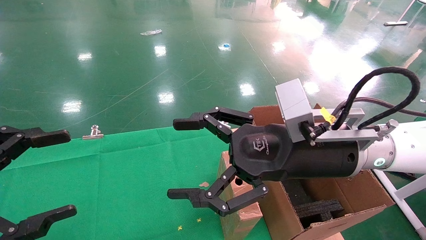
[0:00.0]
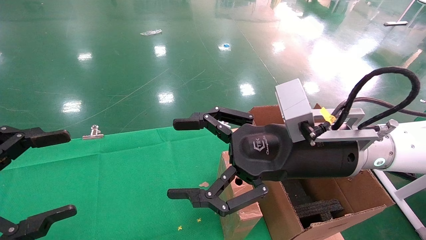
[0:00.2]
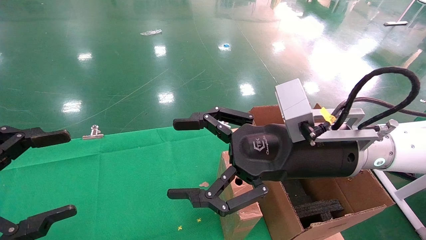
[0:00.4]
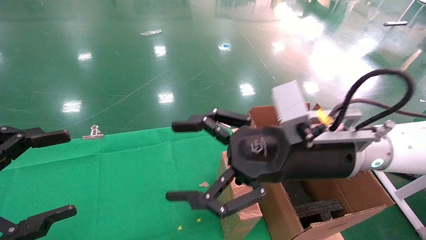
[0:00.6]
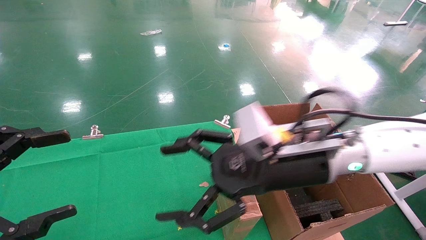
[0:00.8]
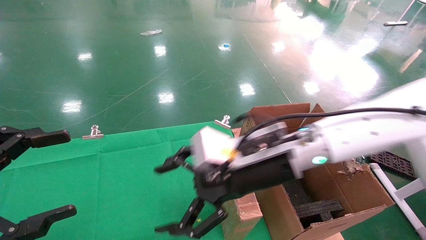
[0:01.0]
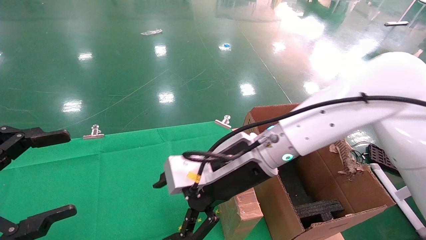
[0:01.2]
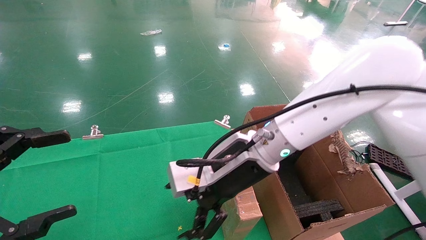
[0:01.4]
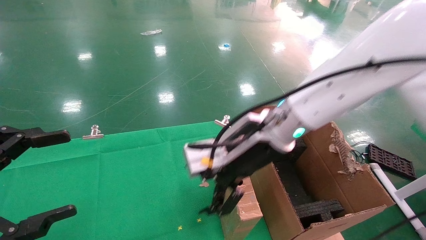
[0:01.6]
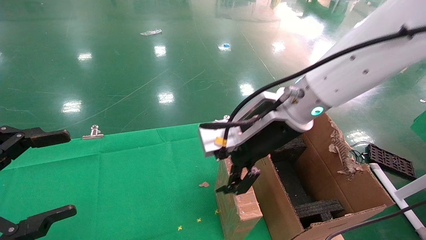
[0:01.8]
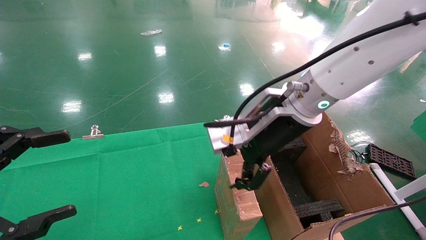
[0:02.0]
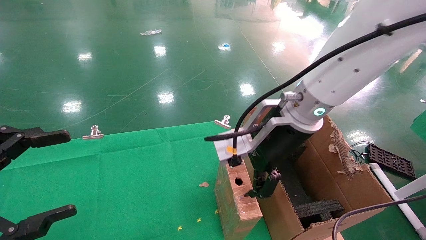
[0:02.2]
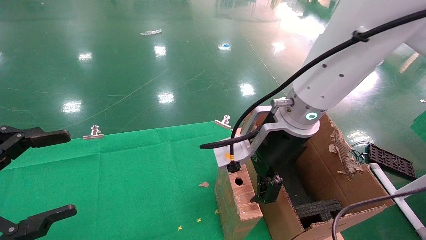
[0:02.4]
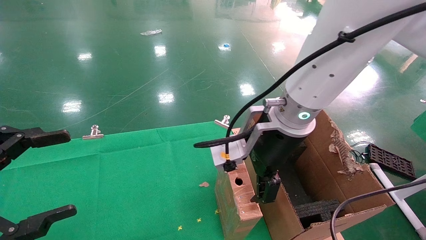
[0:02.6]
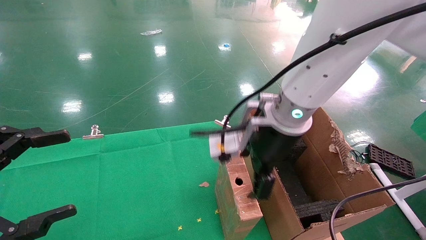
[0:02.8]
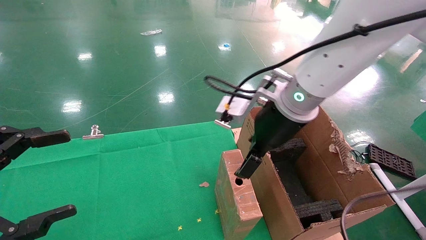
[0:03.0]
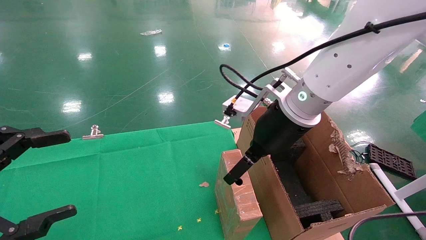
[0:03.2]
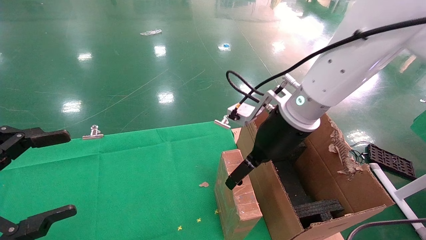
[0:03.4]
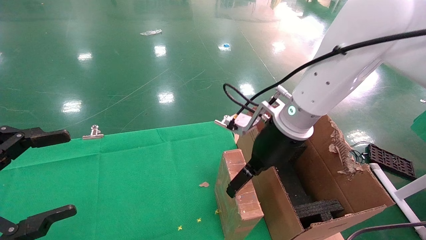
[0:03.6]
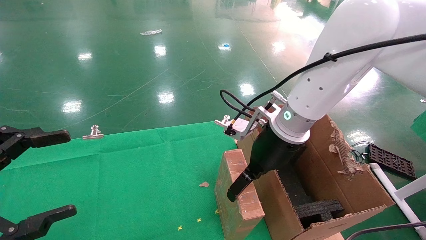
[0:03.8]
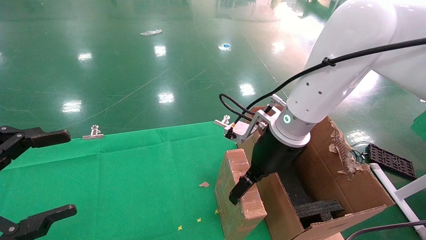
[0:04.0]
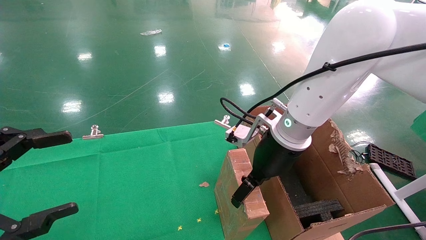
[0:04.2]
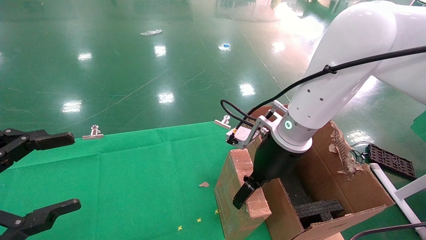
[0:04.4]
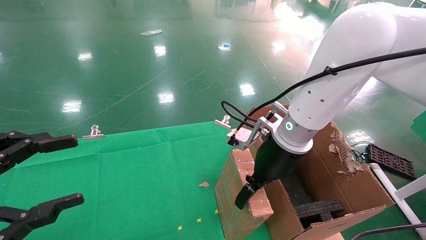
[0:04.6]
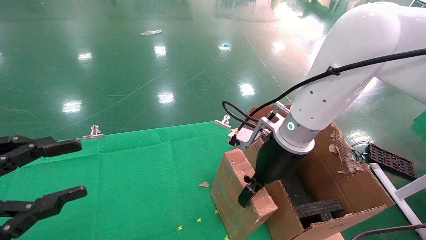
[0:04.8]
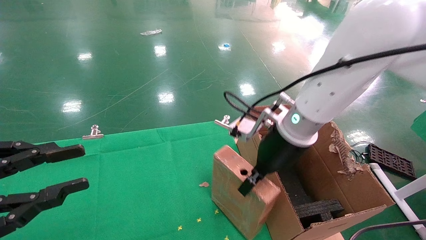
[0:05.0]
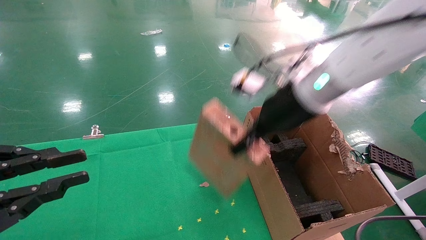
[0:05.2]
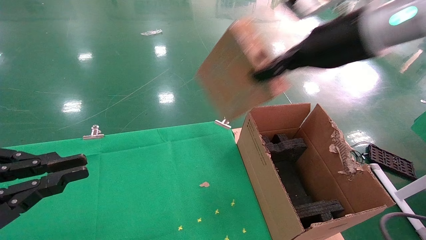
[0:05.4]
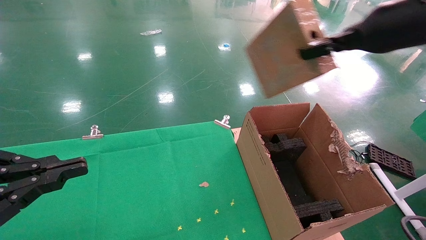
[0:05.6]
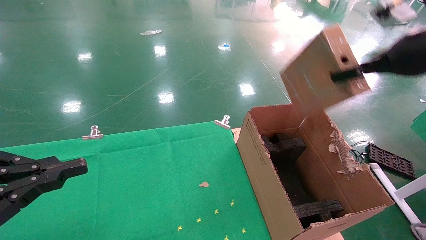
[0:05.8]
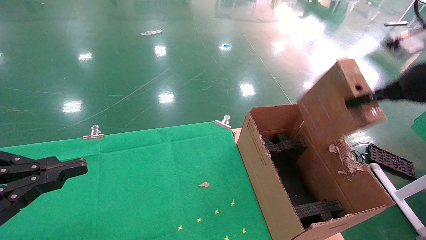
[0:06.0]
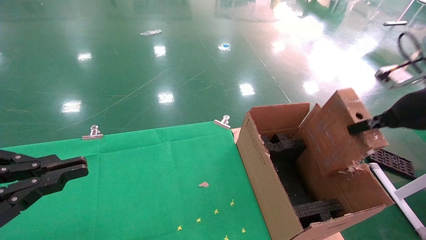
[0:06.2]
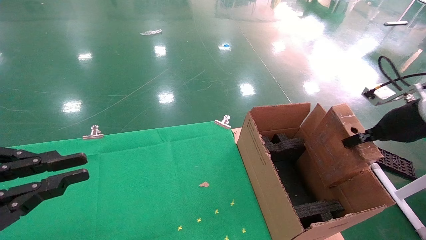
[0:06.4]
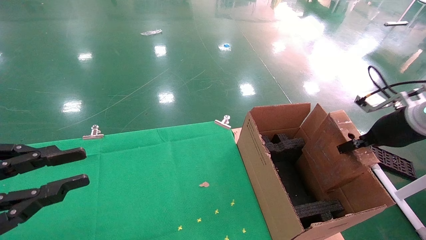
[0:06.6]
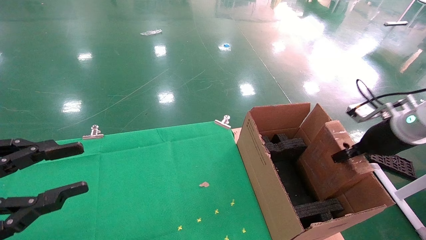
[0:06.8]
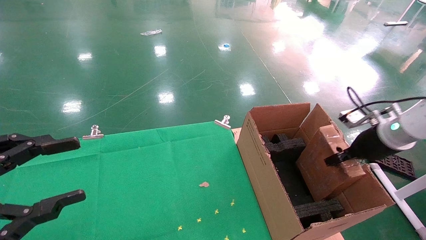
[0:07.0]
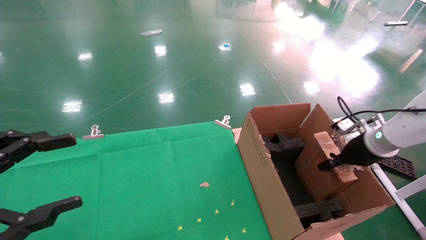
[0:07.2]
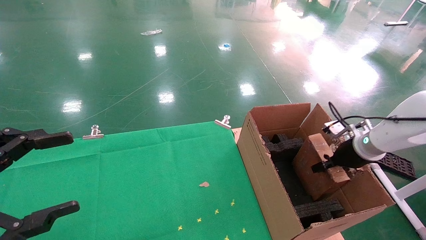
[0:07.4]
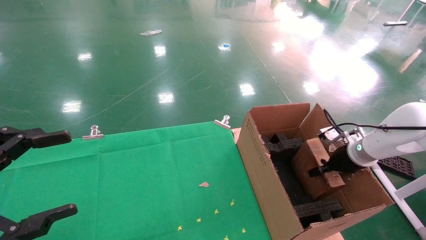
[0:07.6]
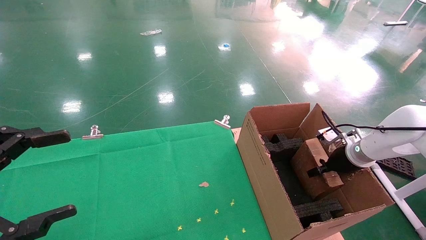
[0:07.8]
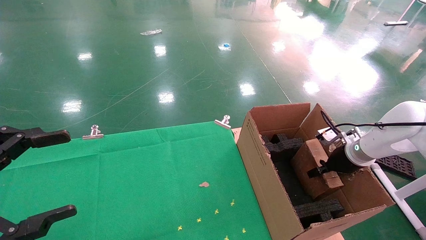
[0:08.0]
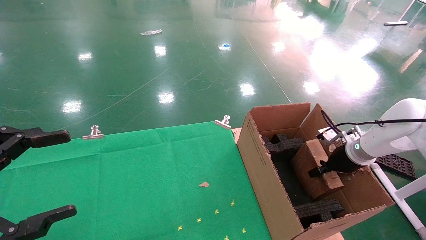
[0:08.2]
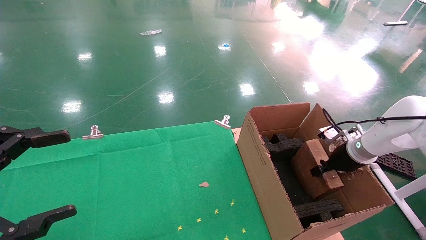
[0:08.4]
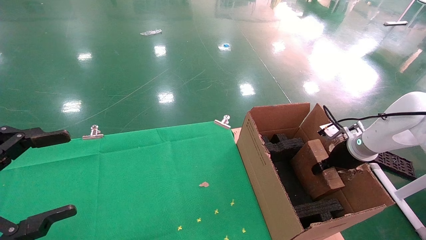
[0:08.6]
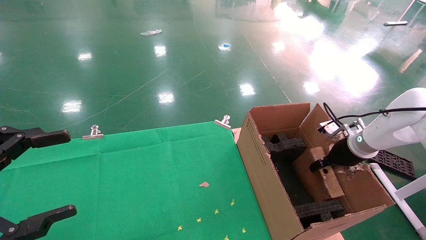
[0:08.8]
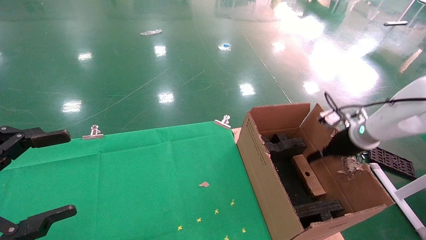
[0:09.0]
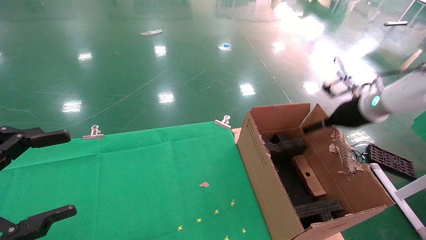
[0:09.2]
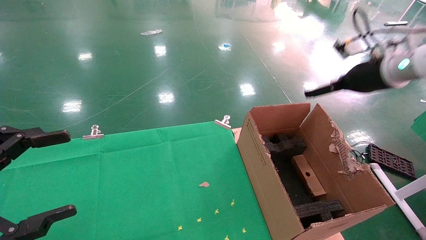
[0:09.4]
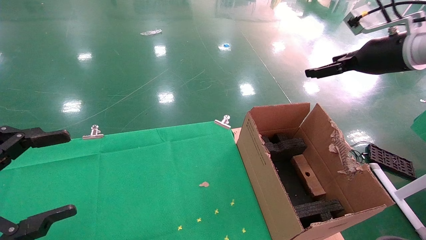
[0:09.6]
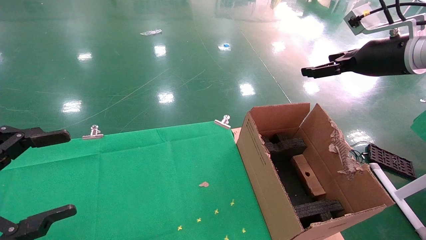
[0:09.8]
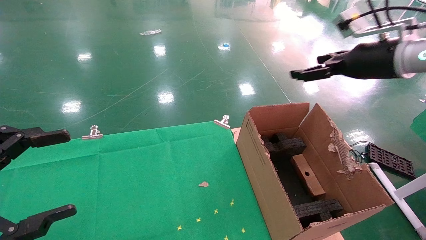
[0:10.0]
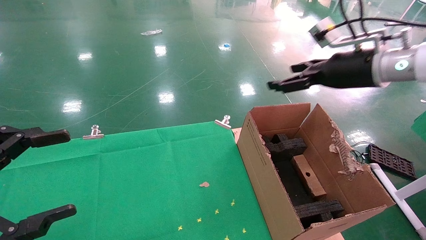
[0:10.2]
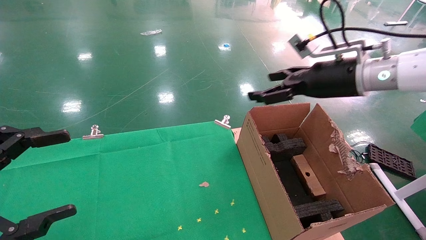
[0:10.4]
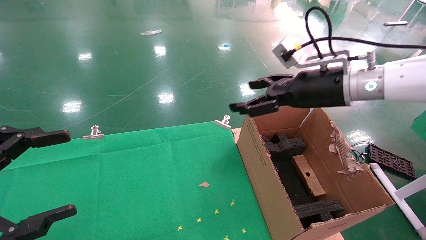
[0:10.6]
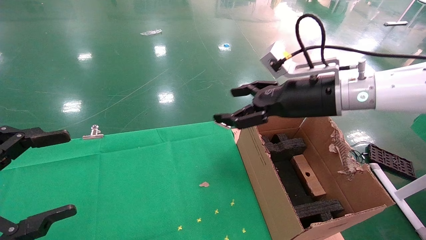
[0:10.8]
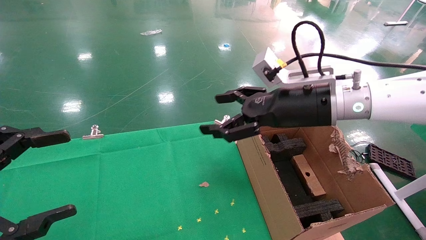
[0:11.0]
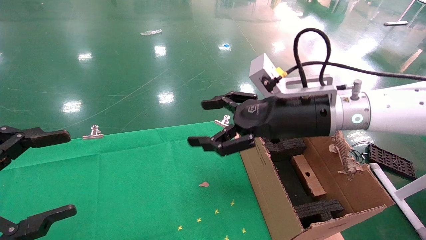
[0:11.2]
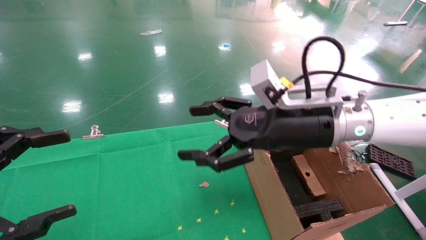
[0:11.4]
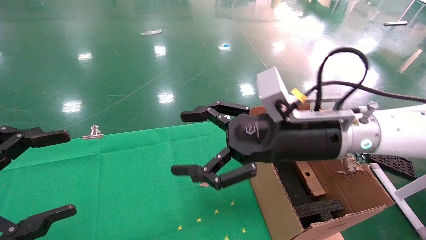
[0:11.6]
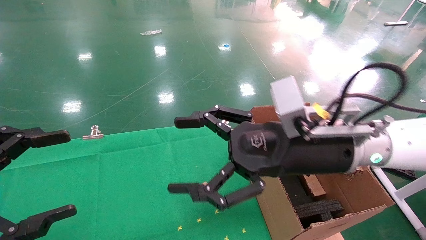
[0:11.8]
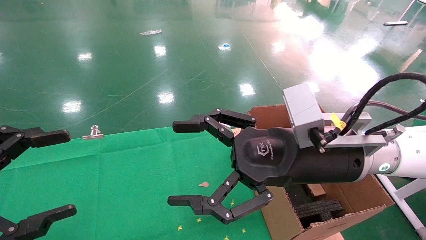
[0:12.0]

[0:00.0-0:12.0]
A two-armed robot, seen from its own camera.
Task of the whole recording: using a robotic arm to pick up a cardboard box and palace it the carton.
Step, 0:01.0 to 0:05.2: Pick up the mouse and the power cord paper box.
Step, 0:05.4 to 0:09.2: Place the mouse and the power cord paper box into the container.
0:00.0 to 0:01.6: The right gripper travels forward and to the left by approximately 10 cm.
0:03.0 to 0:04.4: The right gripper shifts roughly 5 cm downward.
0:04.4 to 0:06.0: The right gripper goes about 25 cm to the right and upward, and closes its fingers, while the left gripper closes up.
0:06.0 to 0:07.6: The left gripper opens its fingers; the right gripper shifts approximately 25 cm downward and forward.
0:07.6 to 0:09.0: The right gripper travels upward by approximately 5 cm, and opens.
0:09.0 to 0:10.4: The right gripper heads upward, to the left and backward, covering roughly 20 cm, and opens.
0:10.4 to 0:12.0: The right gripper heads to the left, backward and downward, covering approximately 15 cm.

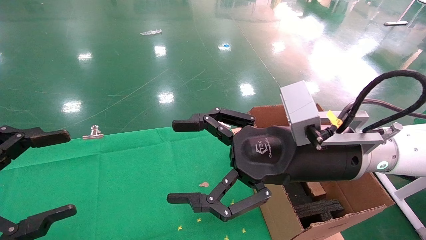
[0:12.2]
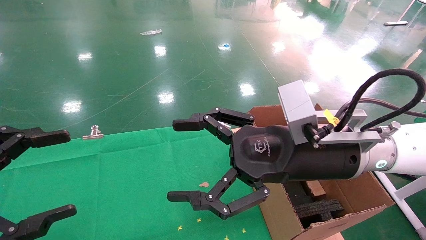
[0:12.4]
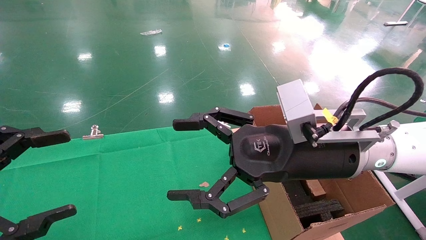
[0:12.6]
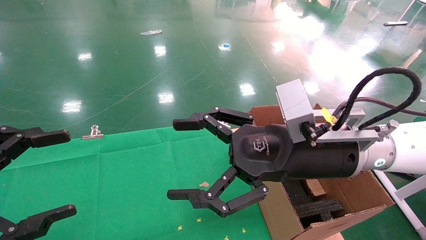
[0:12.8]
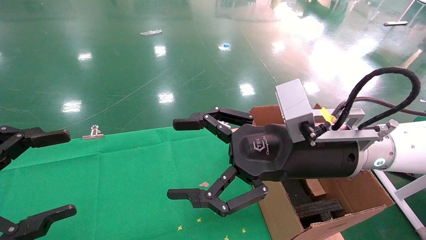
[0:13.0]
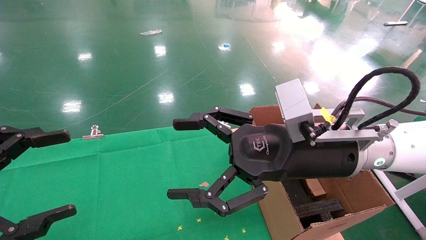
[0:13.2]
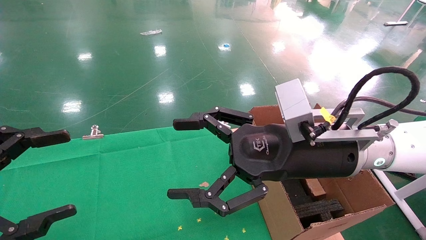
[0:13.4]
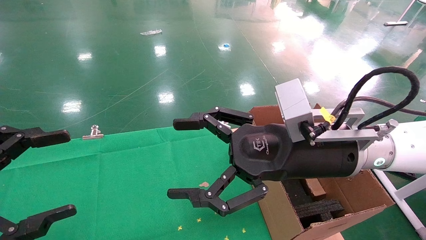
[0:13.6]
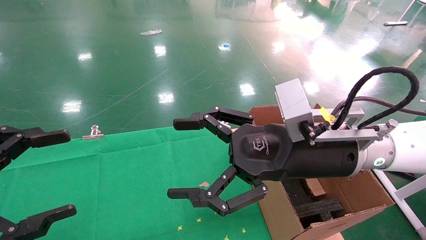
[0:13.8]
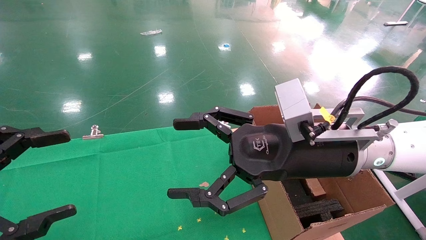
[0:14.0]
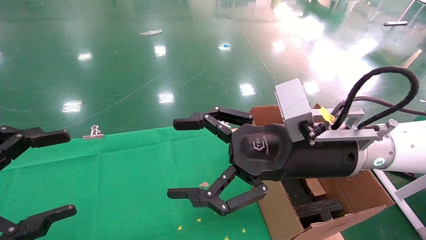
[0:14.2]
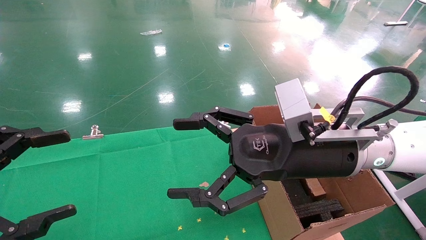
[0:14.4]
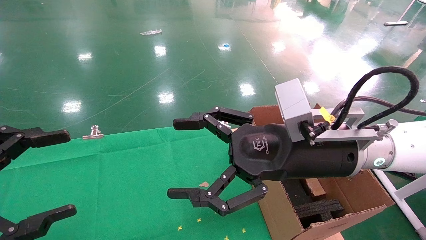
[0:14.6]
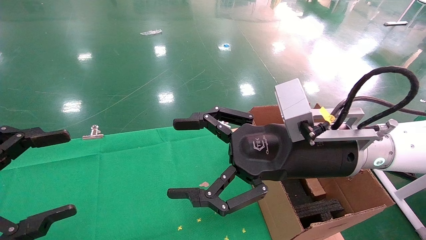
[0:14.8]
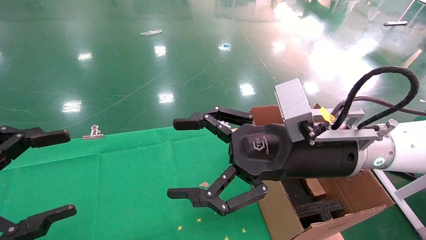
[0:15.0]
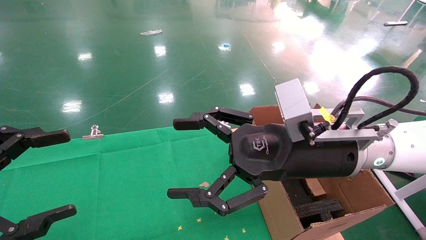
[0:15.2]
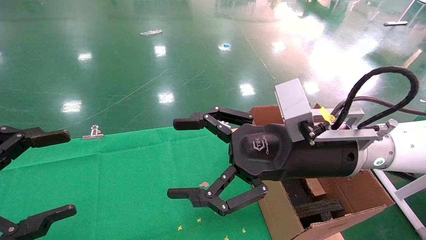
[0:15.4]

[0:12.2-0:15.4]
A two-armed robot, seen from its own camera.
Task of the whole recording: using a robotic arm to pick up a cardboard box and palace it the carton.
0:12.2 to 0:15.4: The two grippers keep their place.

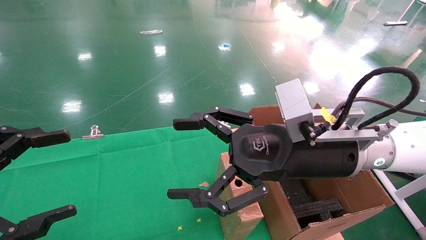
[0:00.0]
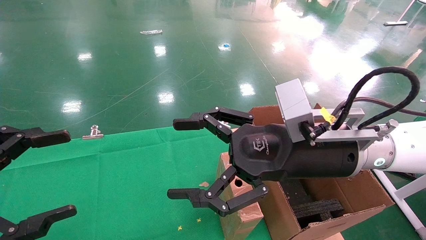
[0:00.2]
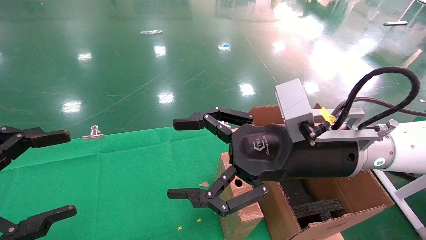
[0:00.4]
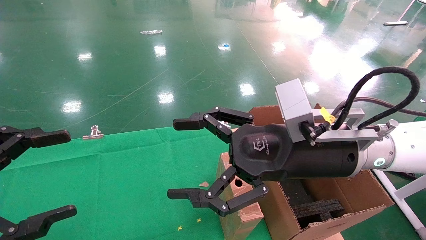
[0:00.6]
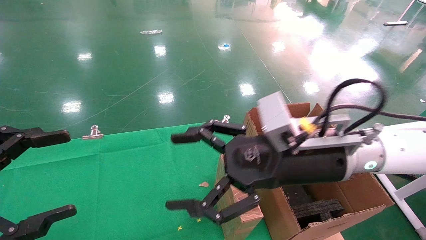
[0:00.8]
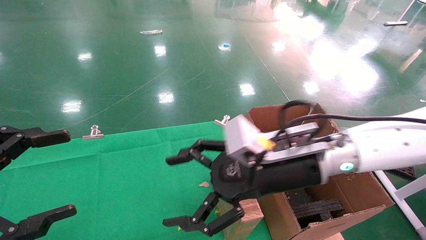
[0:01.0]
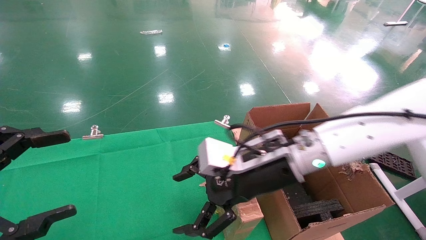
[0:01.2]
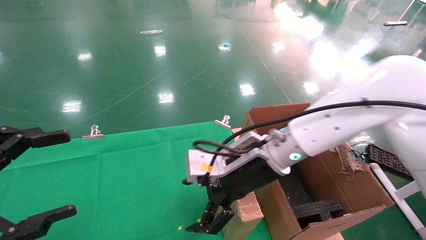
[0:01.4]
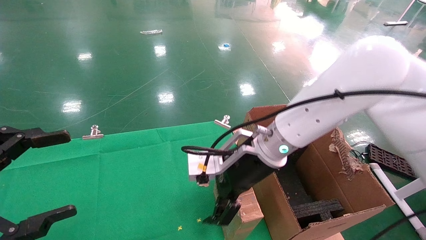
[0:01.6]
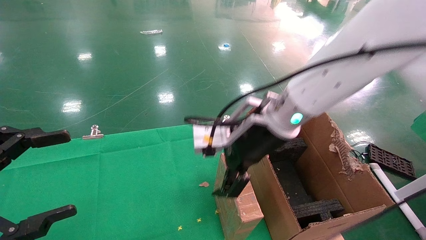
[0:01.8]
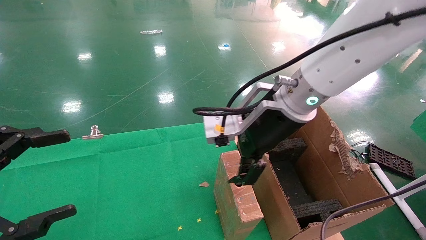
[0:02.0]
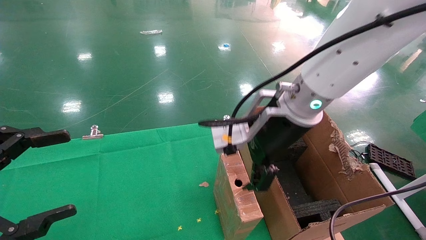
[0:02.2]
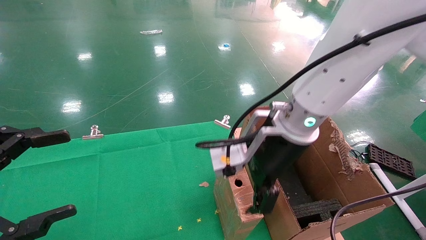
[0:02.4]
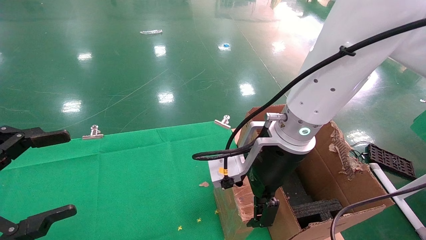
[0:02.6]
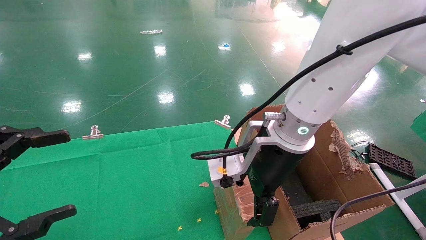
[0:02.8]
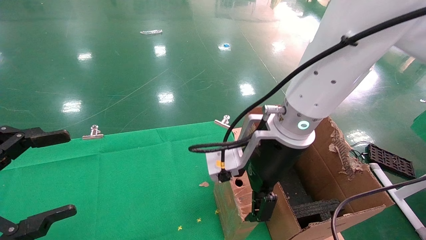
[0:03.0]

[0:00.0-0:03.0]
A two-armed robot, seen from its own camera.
Task of the whole recording: using a robotic arm to pick up a cardboard box and palace it the carton.
0:00.0 to 0:01.6: The right gripper moves forward and to the left, some 10 cm.
